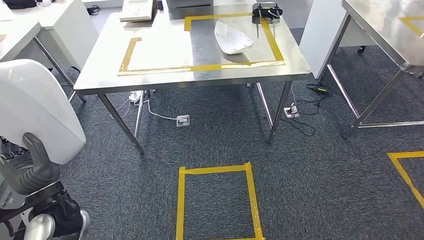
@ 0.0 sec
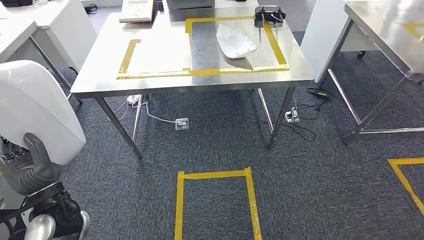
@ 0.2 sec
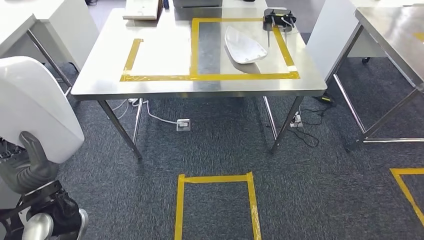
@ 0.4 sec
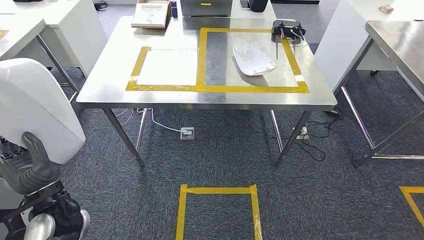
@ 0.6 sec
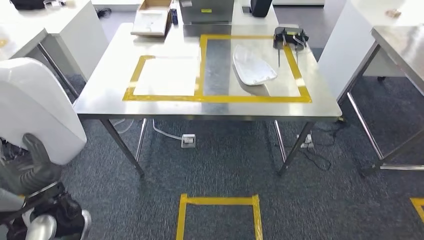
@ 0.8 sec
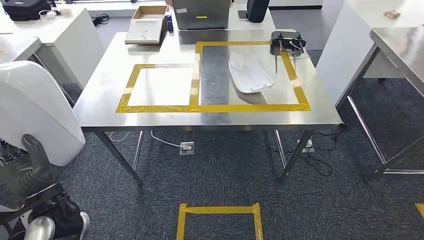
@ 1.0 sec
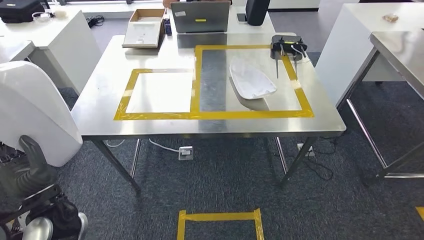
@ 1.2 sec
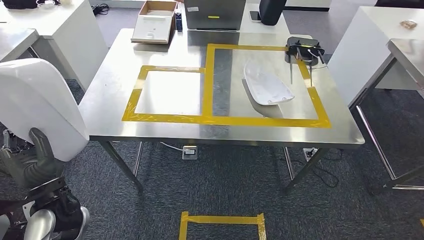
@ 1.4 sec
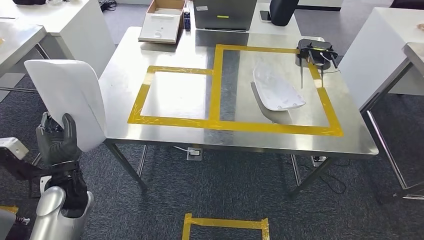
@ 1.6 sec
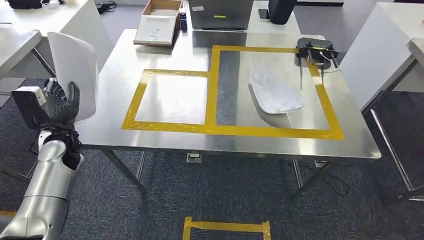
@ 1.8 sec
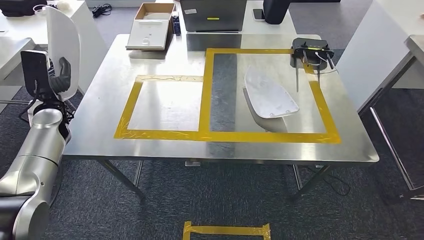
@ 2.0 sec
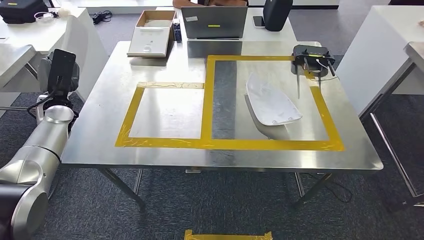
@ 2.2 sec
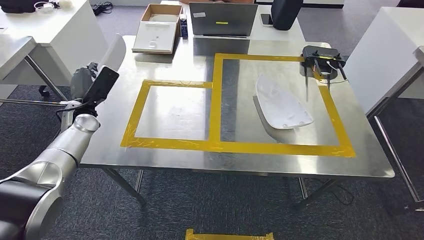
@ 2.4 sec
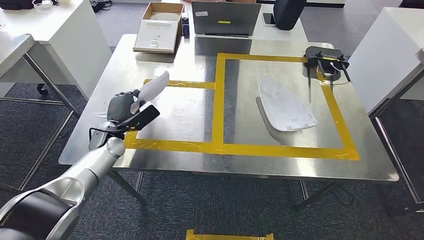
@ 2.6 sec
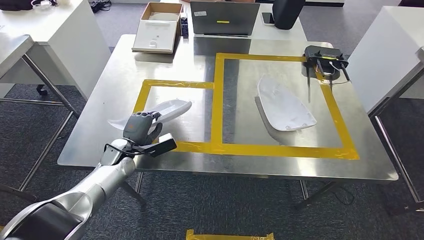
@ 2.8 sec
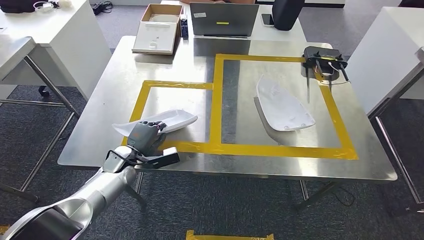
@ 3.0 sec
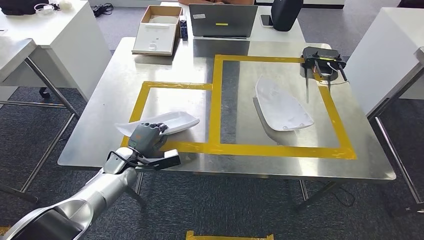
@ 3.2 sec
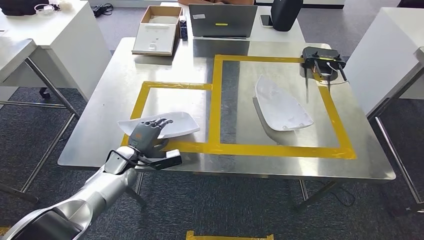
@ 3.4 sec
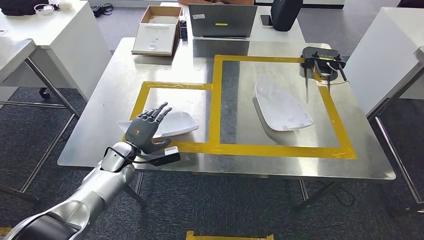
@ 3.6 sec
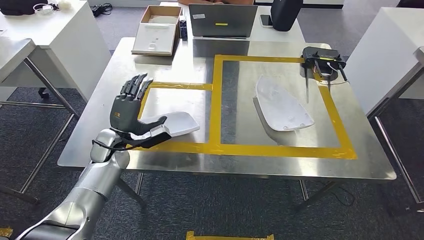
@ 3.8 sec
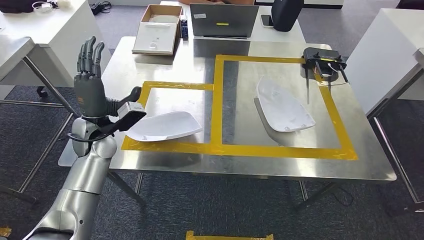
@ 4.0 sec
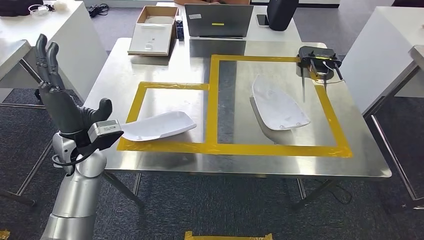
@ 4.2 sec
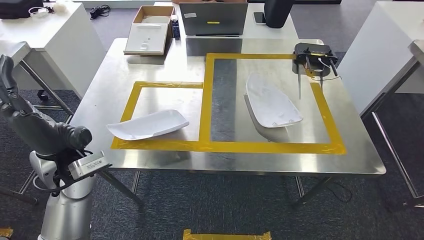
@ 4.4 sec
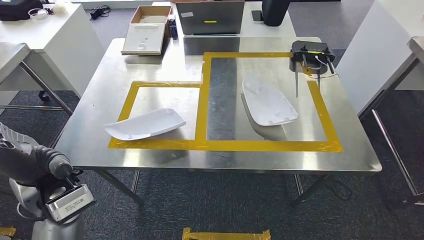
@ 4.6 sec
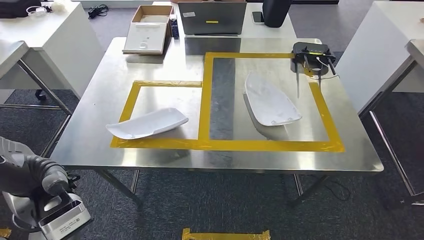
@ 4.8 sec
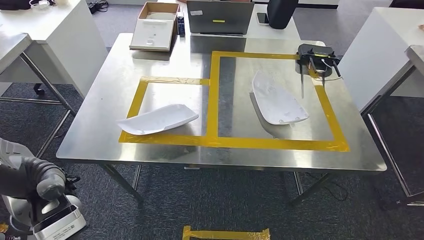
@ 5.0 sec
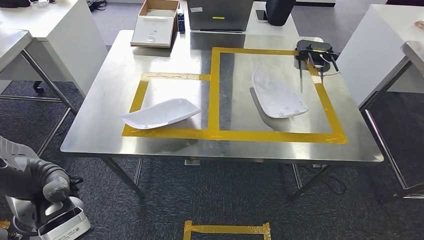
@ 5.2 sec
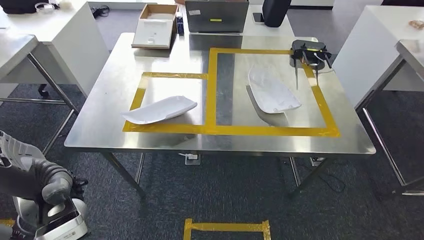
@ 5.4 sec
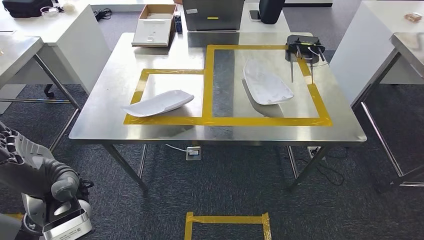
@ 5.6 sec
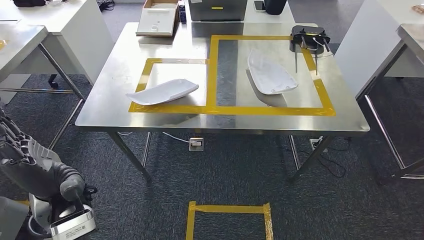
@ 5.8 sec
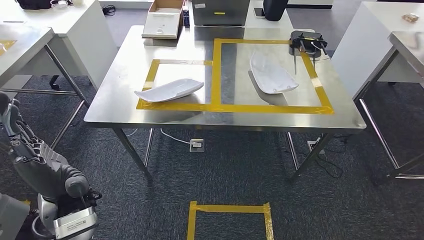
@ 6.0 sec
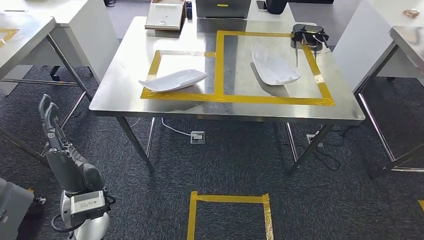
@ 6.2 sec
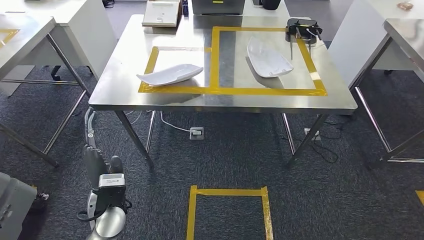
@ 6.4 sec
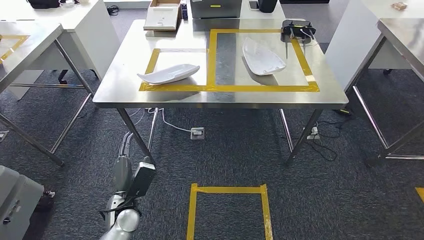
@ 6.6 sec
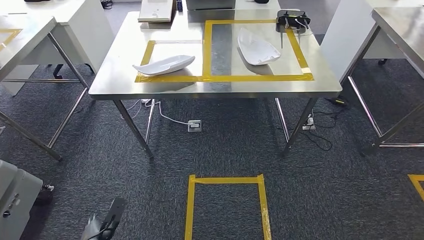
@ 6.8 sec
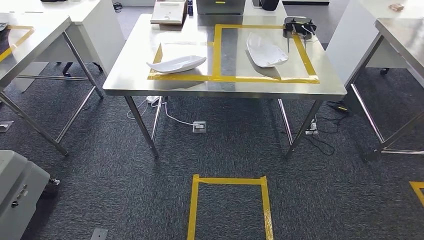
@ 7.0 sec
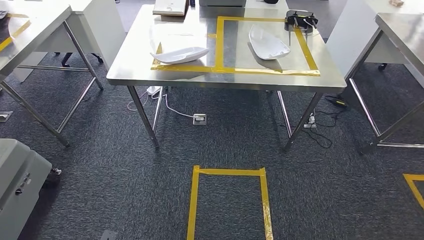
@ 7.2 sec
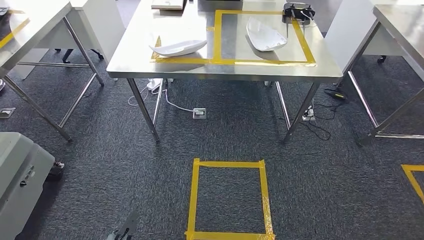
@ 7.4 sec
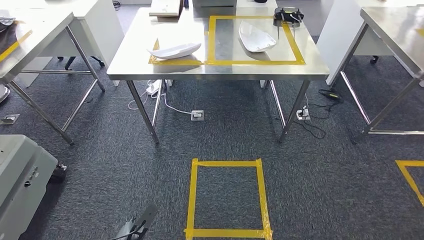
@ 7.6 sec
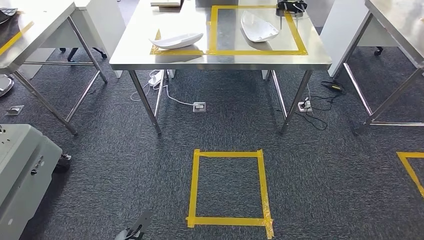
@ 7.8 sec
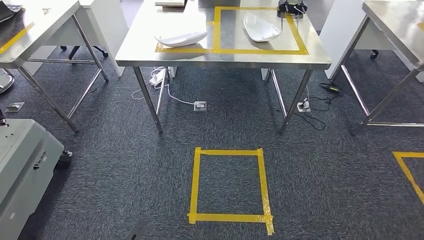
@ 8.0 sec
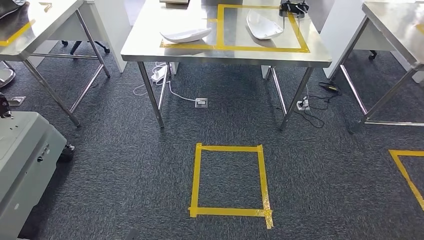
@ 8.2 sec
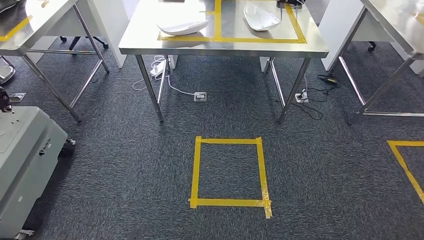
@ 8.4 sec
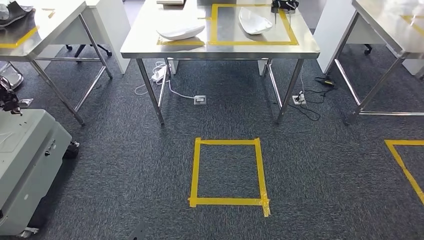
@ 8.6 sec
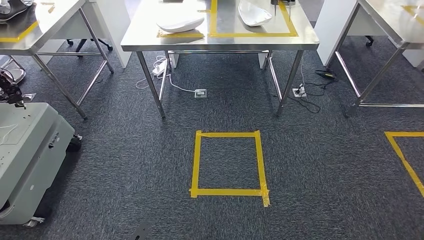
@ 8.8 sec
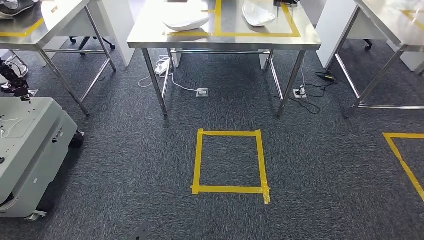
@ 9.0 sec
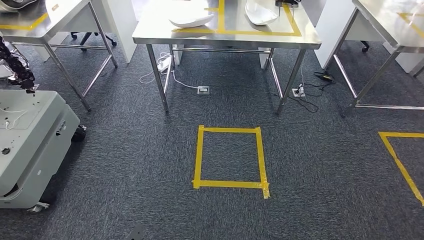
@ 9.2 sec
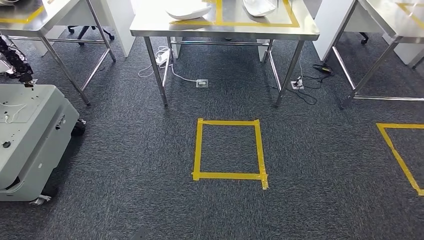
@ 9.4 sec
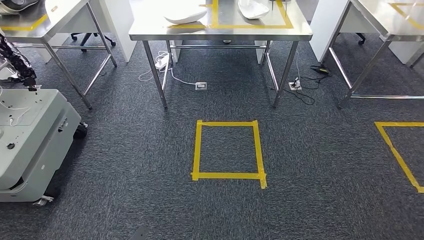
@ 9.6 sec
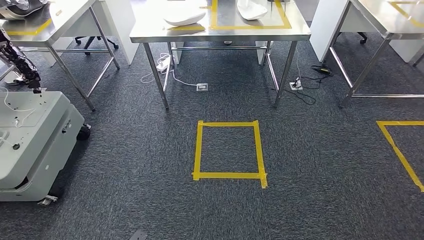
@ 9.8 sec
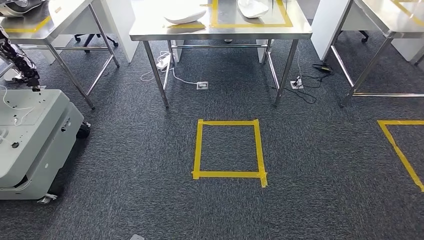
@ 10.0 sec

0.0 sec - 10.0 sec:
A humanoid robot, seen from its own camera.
Step, 0.0 sec - 6.2 sec: Insert the small parts into the corresponding holes on the workbench.
Step, 6.4 sec - 10.0 sec: Move to the initial position of the workbench.
